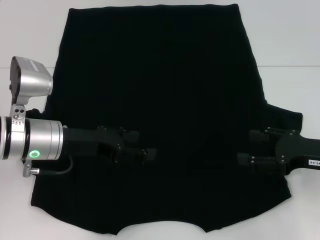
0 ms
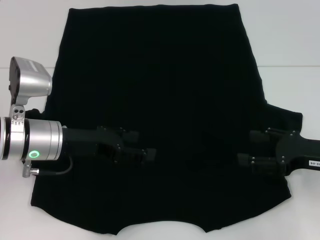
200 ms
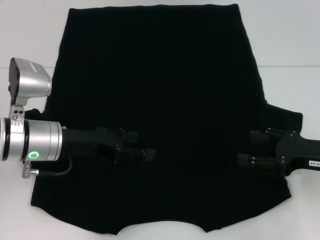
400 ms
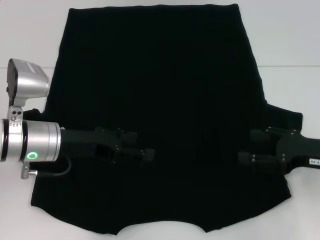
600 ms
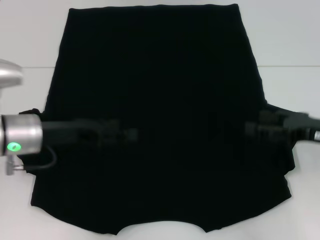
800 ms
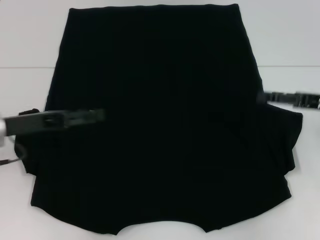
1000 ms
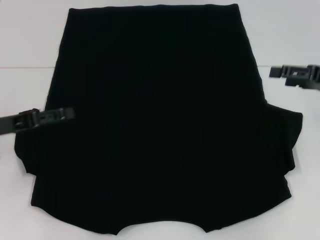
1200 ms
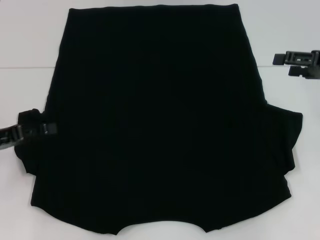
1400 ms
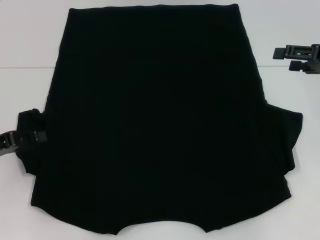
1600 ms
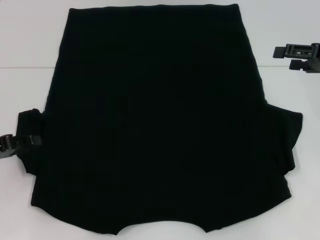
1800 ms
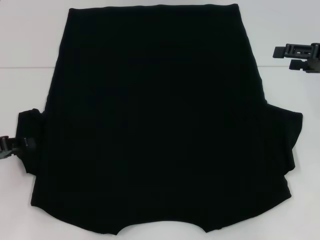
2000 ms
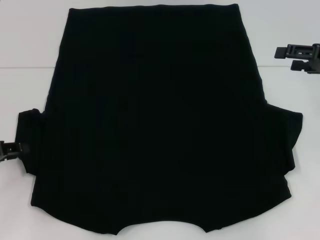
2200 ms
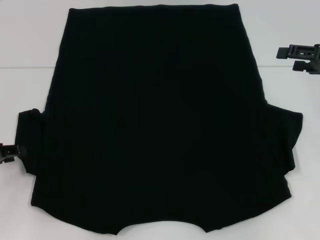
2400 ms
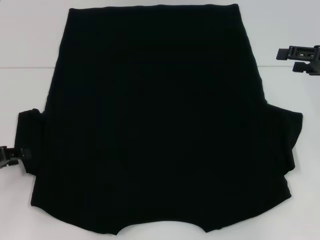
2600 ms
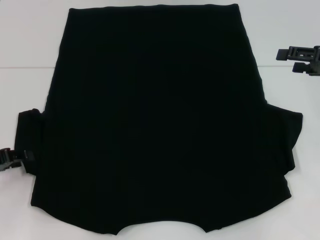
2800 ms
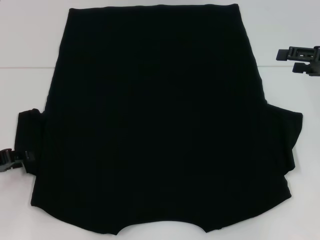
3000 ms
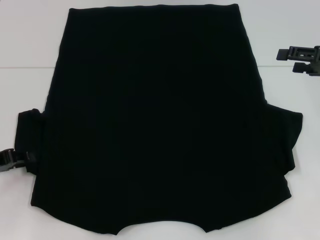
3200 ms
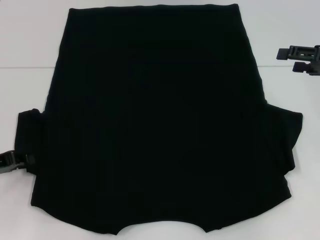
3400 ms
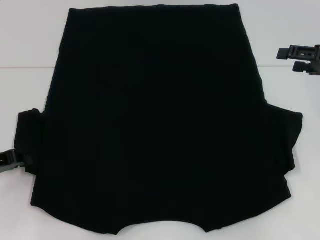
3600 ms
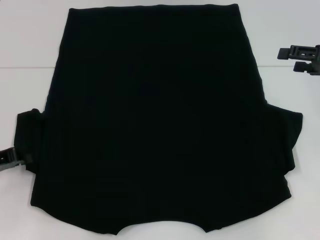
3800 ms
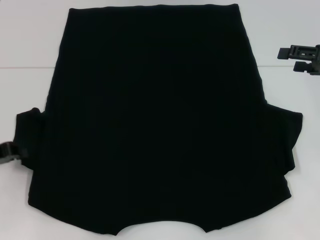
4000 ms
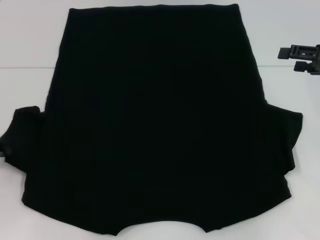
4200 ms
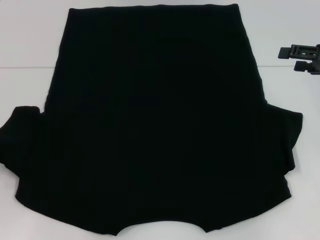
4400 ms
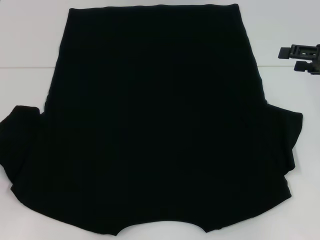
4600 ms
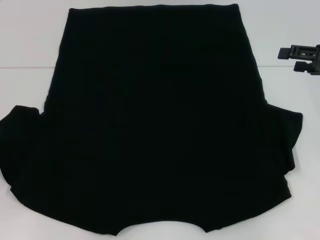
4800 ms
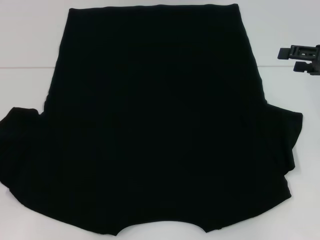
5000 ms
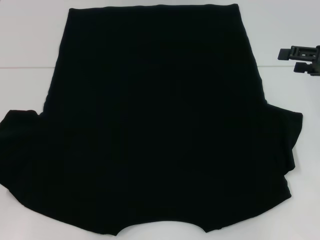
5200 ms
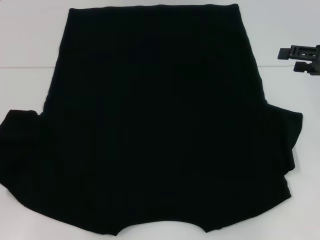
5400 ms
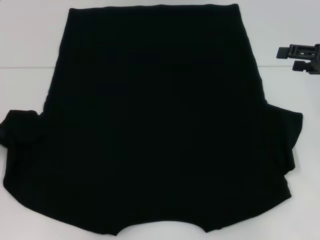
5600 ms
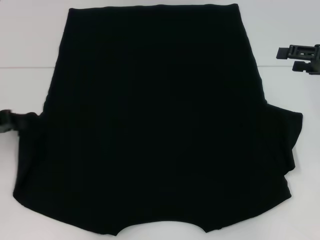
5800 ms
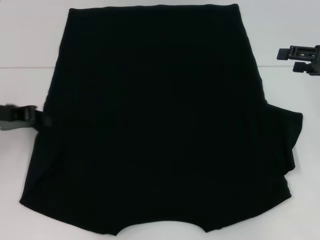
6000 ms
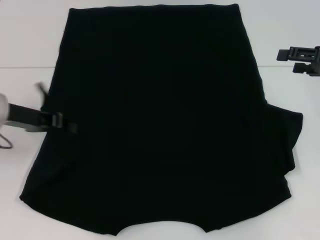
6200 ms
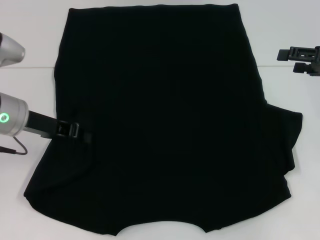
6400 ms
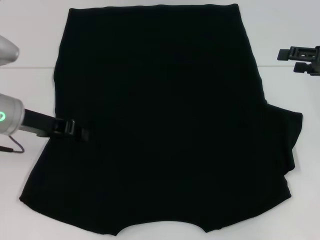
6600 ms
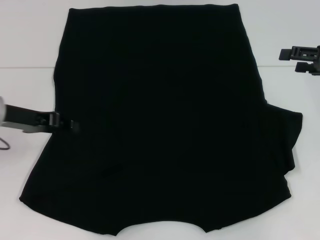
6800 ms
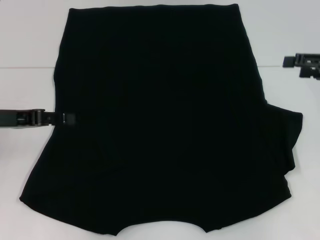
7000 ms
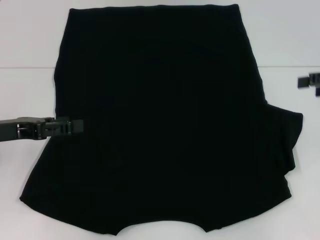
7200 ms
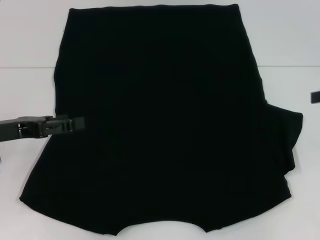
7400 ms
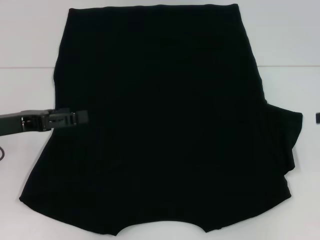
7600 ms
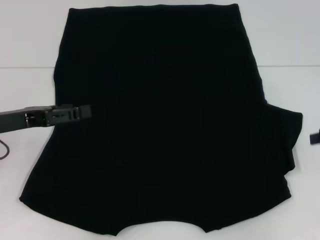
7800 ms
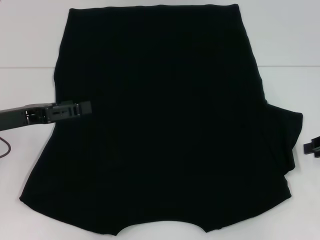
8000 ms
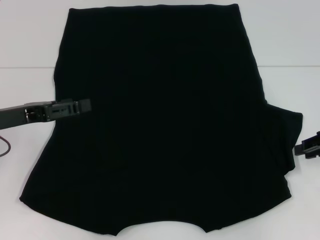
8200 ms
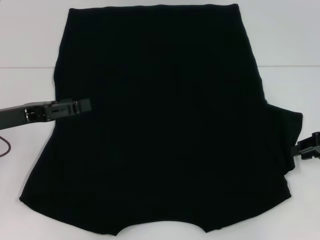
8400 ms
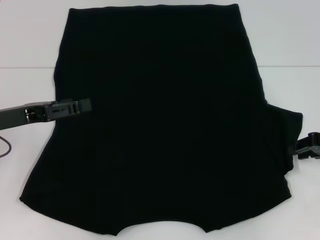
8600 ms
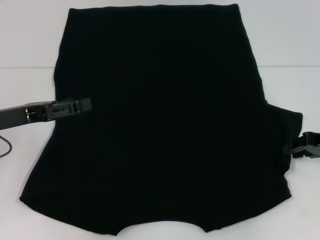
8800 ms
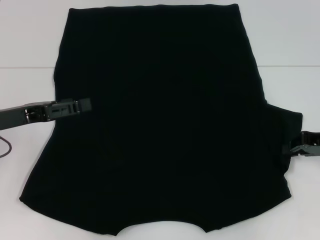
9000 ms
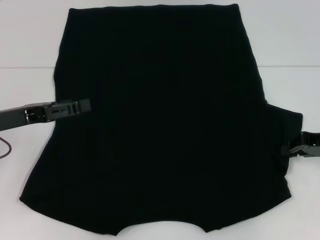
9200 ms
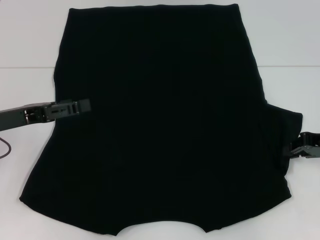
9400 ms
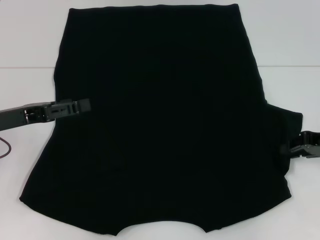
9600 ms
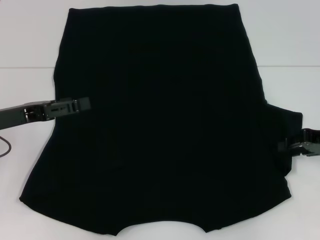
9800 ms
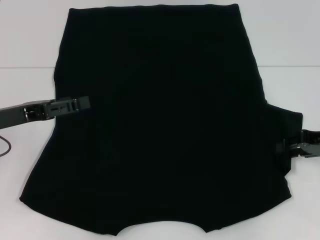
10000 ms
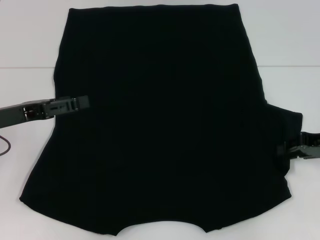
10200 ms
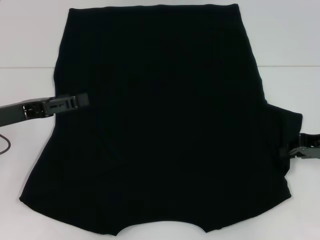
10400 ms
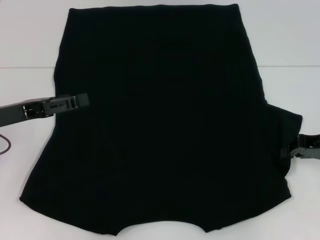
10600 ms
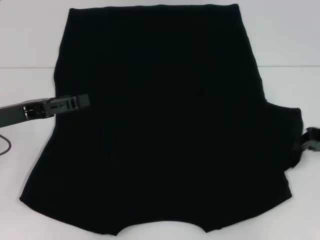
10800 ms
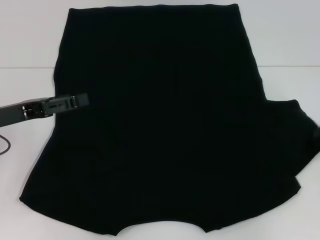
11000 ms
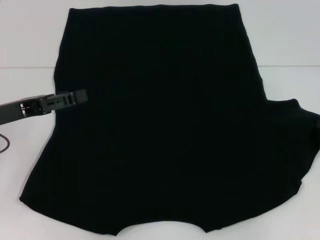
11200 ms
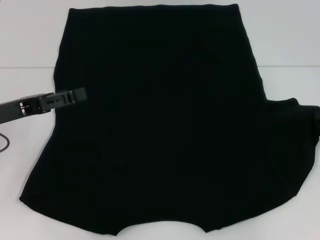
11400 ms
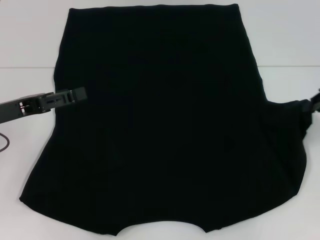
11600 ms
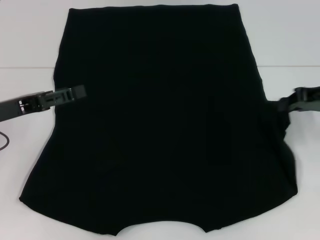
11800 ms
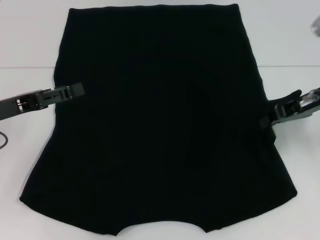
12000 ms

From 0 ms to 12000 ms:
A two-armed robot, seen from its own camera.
Step, from 0 ms to 7000 ms: Fold the bottom left sleeve with your left hand.
From 0 ms to 1600 ms: The right gripper shifts roughly 15 cm forward and upward, while the left gripper heads to the left, covering roughly 15 cm.
From 1600 ms to 3000 ms: The grippers move only a little.
From 3000 ms to 4400 ms: The left gripper closes its fingers.
From 4400 ms to 6000 ms: The left gripper moves to the right, forward and upward, roughly 10 cm.
From 6000 ms to 7600 ms: The right gripper moves about 5 cm; the left gripper opens.
From 7600 ms to 9000 ms: The right gripper travels downward and to the left by roughly 10 cm, and closes.
From 9000 ms to 10400 ms: The two grippers keep their place.
From 10400 ms to 12000 ms: The right gripper shifts about 10 cm upward and to the left.

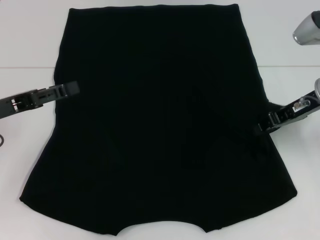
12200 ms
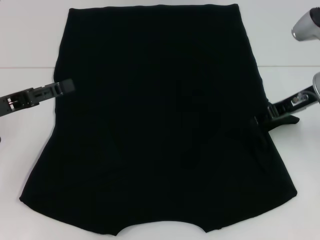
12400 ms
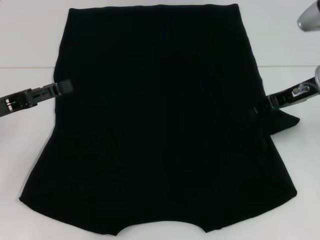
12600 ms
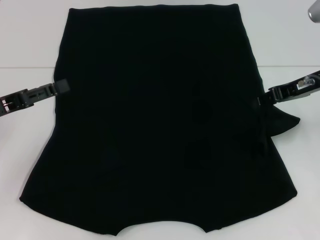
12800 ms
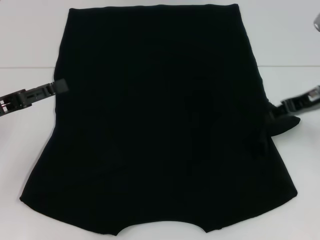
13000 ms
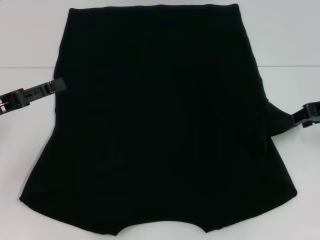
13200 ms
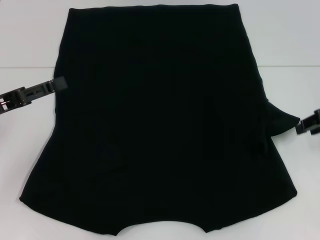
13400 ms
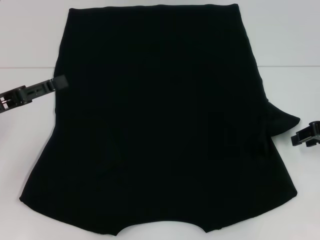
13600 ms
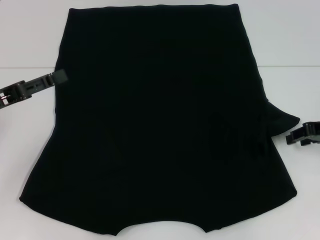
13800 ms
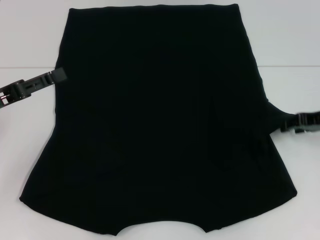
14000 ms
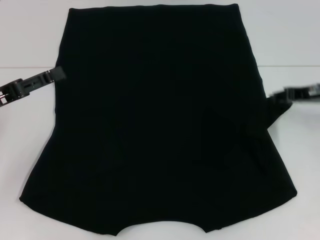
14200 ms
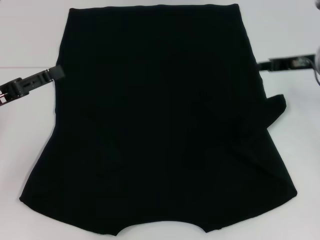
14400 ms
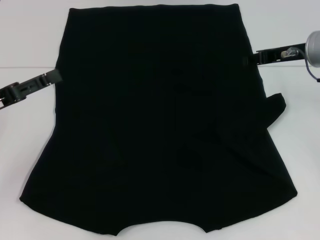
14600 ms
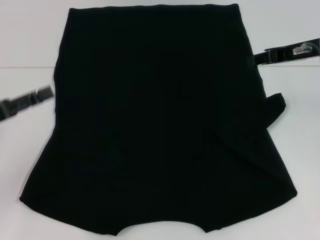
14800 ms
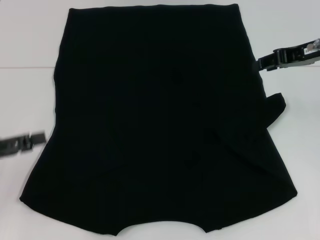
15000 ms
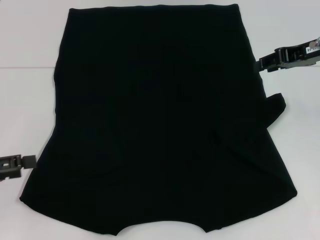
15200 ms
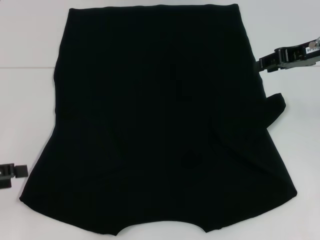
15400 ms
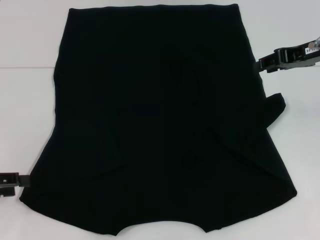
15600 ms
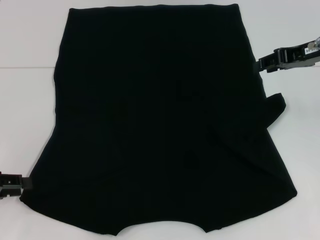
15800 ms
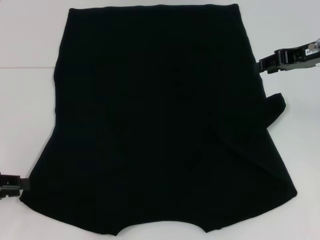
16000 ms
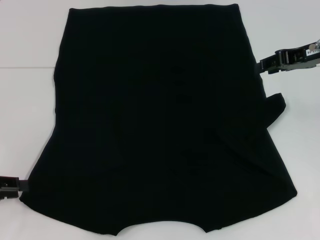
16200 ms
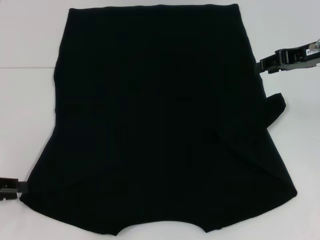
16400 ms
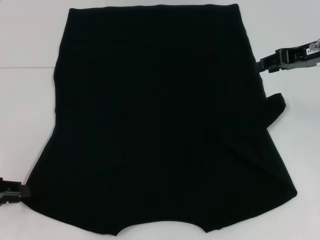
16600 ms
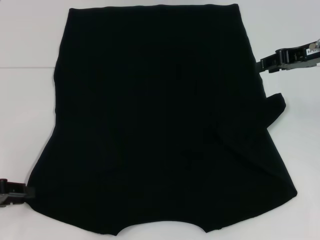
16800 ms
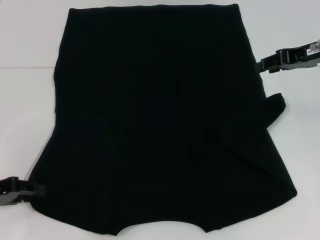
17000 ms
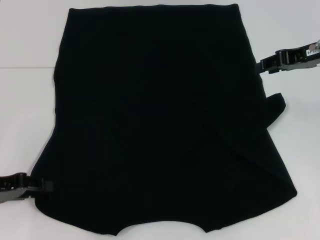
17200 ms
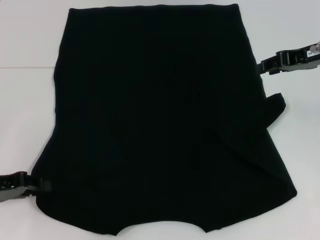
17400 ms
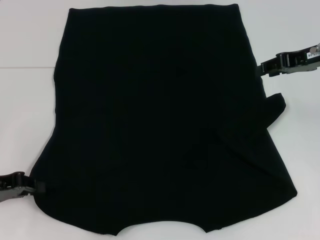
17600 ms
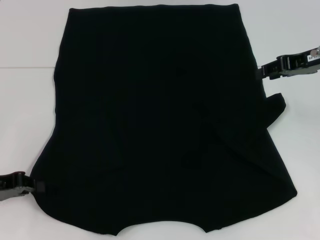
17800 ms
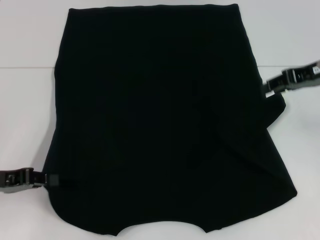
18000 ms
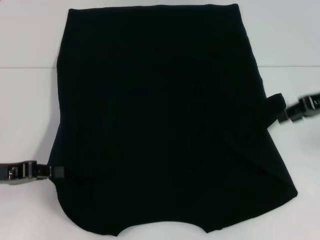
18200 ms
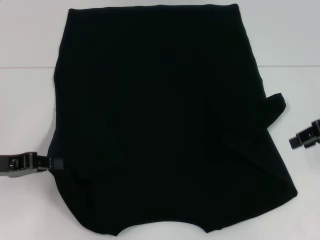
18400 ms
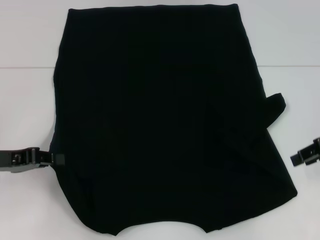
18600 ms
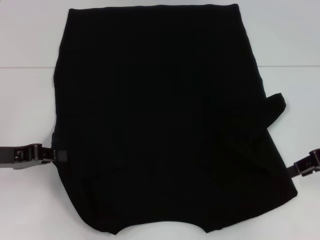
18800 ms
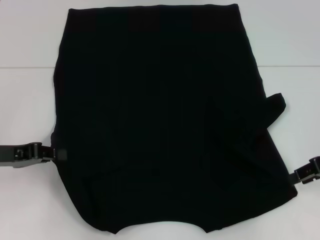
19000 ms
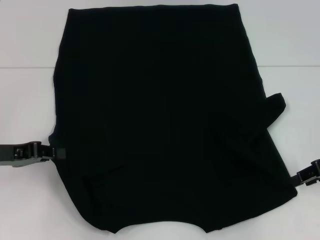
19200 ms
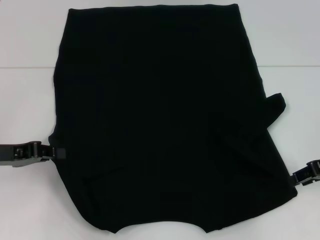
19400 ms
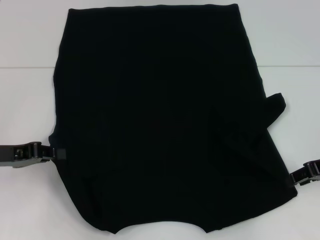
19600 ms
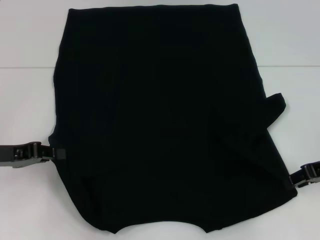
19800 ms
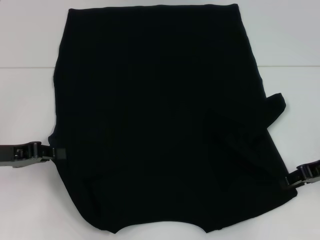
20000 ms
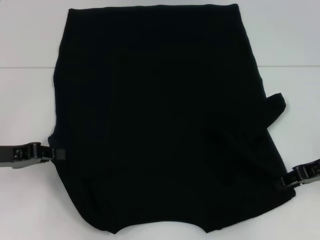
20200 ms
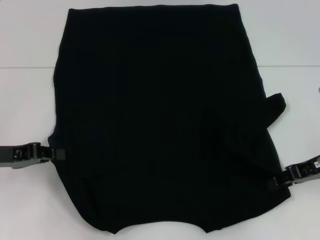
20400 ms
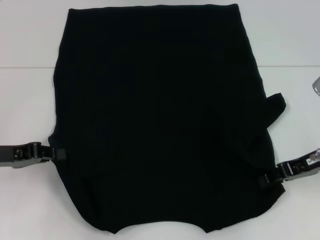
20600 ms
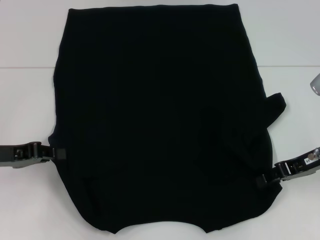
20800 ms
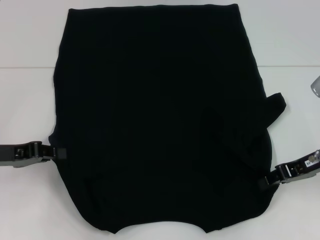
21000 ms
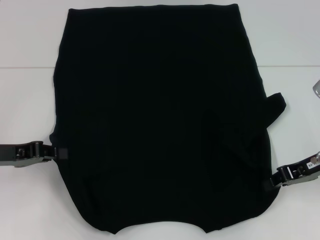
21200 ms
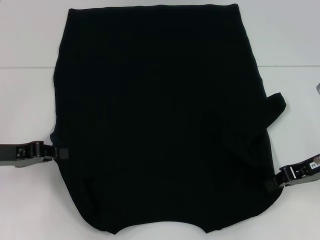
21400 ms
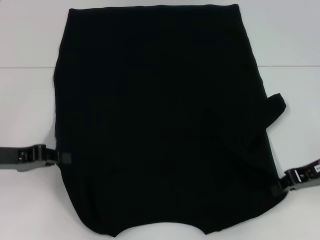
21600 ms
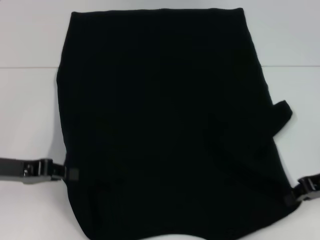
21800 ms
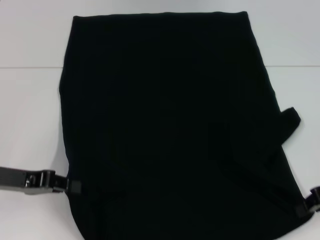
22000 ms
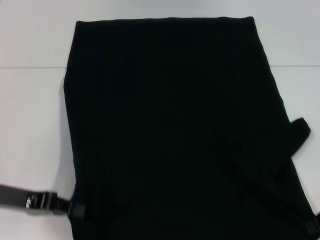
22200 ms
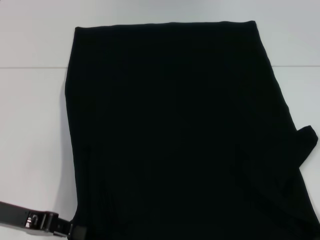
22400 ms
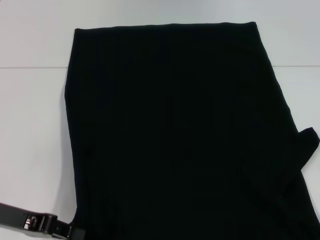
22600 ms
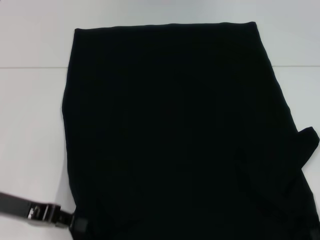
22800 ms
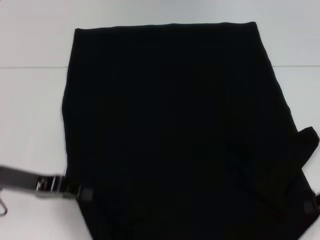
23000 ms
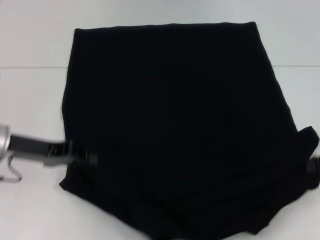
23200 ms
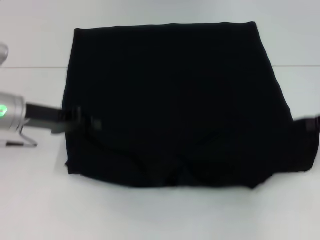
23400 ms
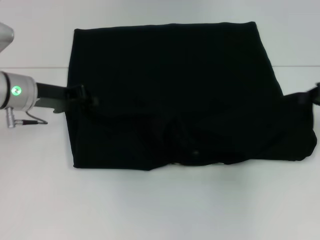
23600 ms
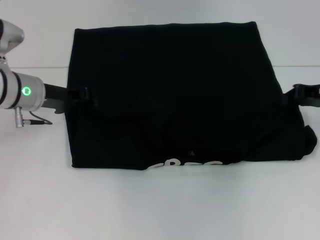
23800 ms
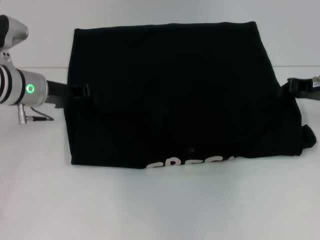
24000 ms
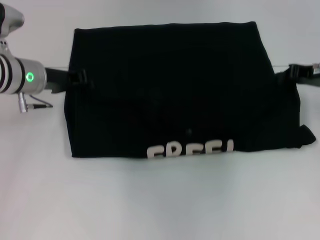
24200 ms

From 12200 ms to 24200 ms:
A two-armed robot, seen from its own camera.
Step, from 12200 ms to 16400 ms: Fold the bottom right sleeve with your right hand.
Step, from 16600 ms to 21000 ms: Grab the bottom left corner with your left hand.
Step, from 16600 ms to 21000 ms: Grab the bottom right corner with your right hand.
From 12200 ms to 13800 ms: The right gripper goes approximately 5 cm to the right, and opens.
From 13800 ms to 15200 ms: The right gripper is displaced upward and to the left by some 10 cm, while the left gripper goes approximately 5 cm backward.
From 15200 ms to 16600 ms: The left gripper closes up.
From 16600 ms to 18200 ms: The right gripper moves roughly 5 cm; the left gripper closes its fingers.
From 18200 ms to 19800 ms: The right gripper travels downward by some 10 cm.
From 19800 ms to 21200 ms: The grippers stay close to where they were, moving slightly.
From 21200 ms to 22600 ms: The left gripper shifts by approximately 5 cm. The right gripper heads backward and to the right, covering some 10 cm.
From 22600 ms to 24200 ms: The grippers both shift forward by roughly 15 cm.
